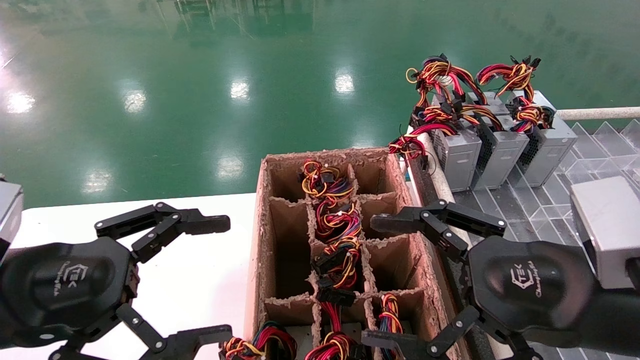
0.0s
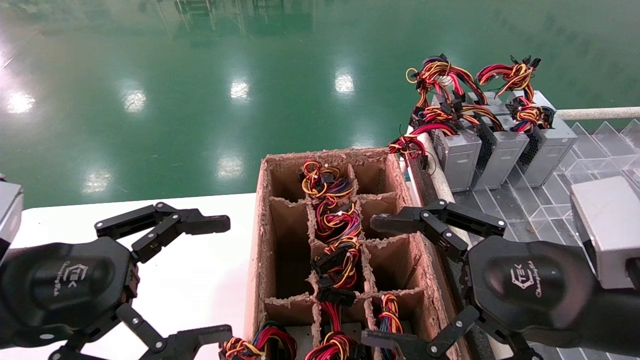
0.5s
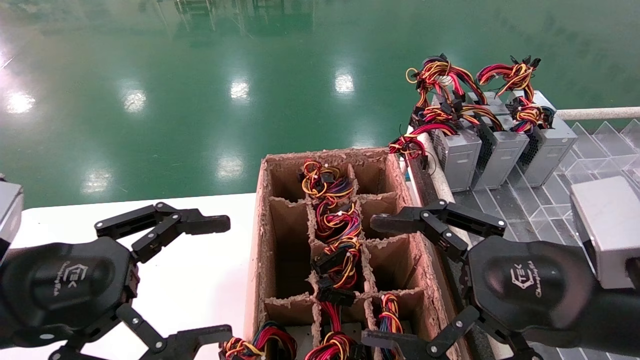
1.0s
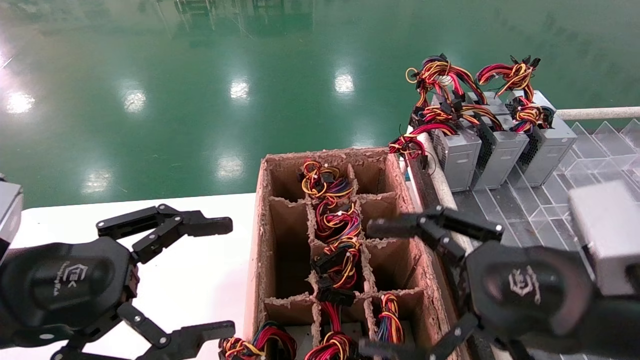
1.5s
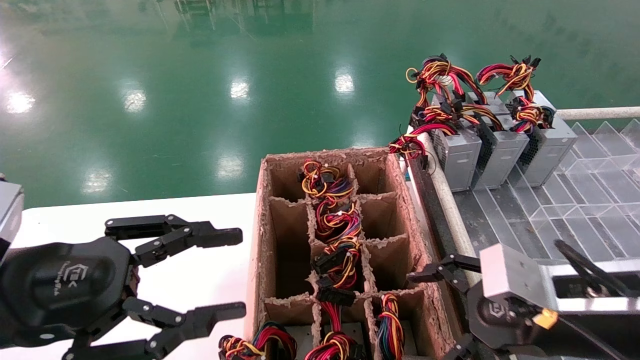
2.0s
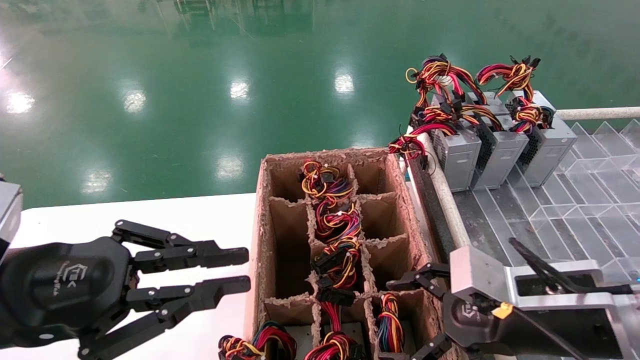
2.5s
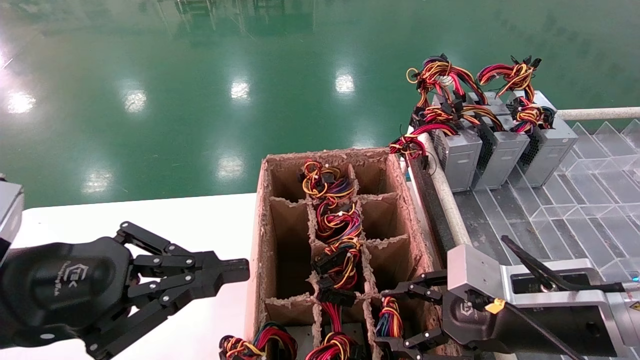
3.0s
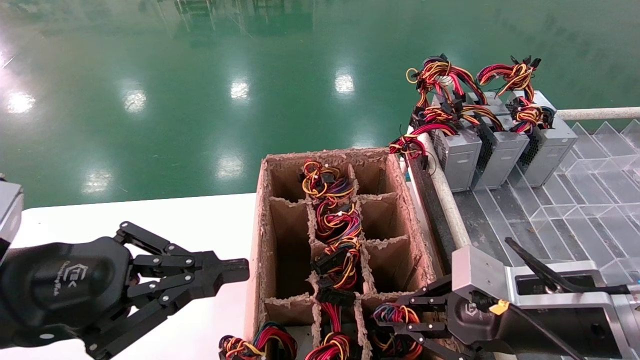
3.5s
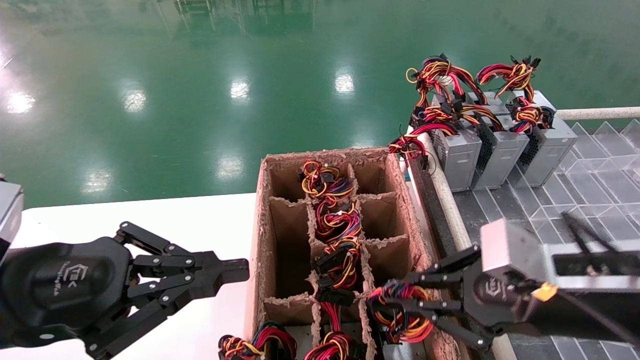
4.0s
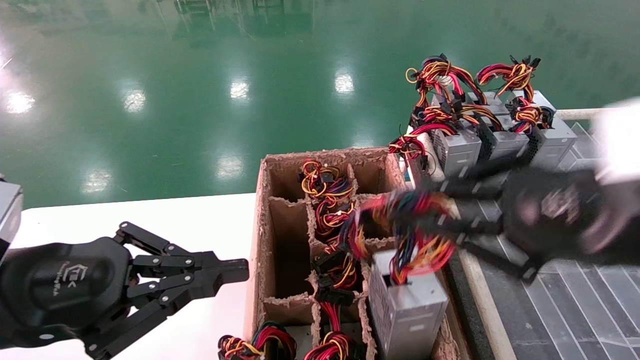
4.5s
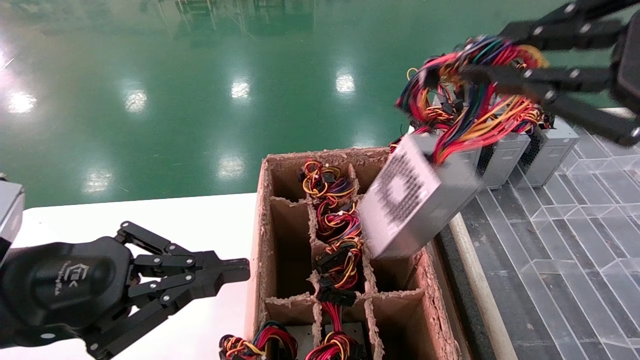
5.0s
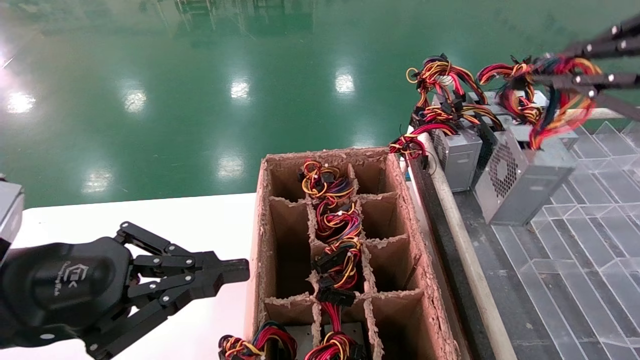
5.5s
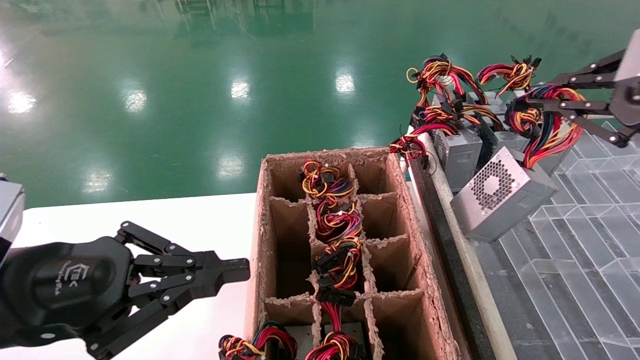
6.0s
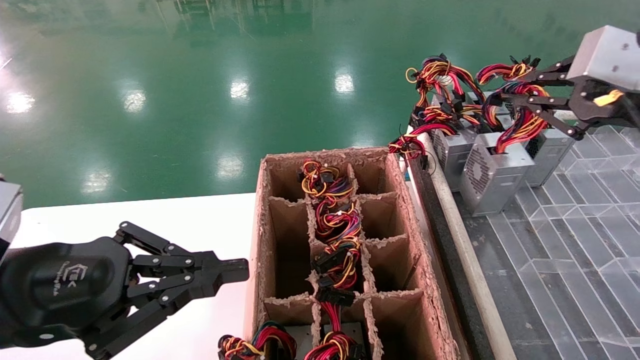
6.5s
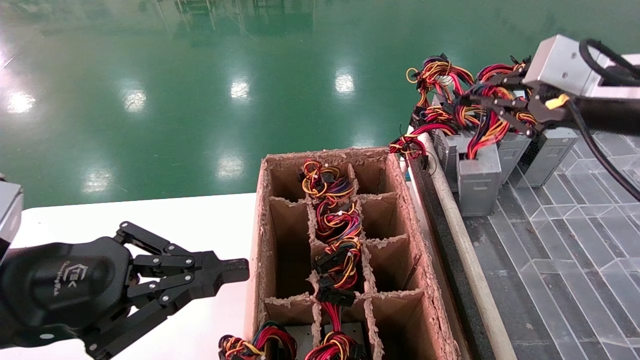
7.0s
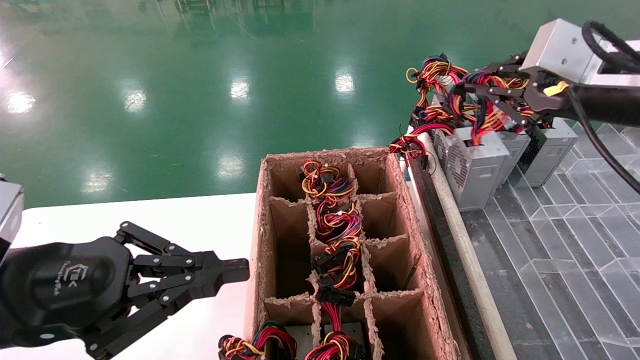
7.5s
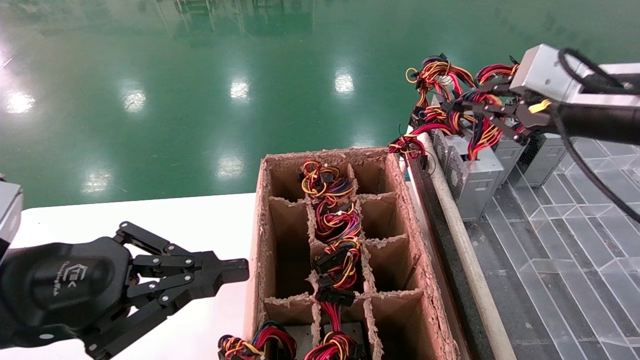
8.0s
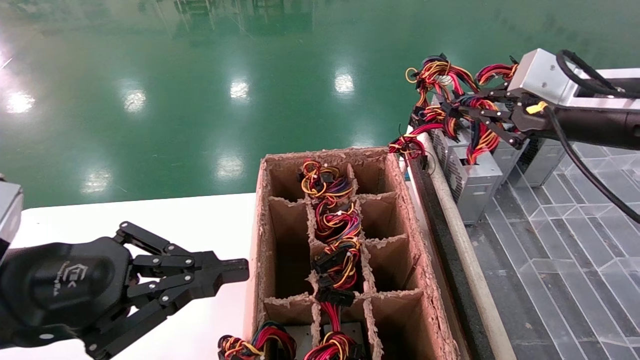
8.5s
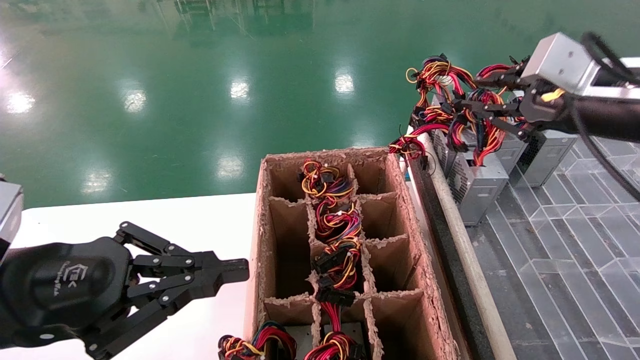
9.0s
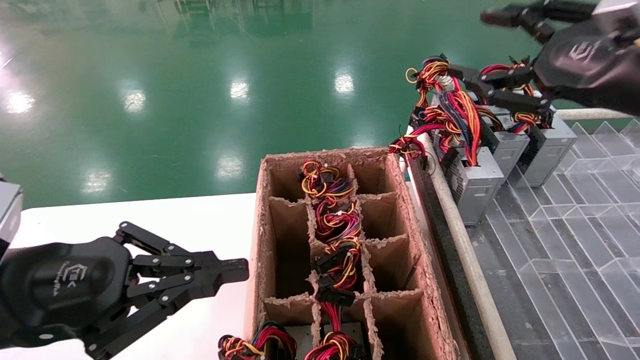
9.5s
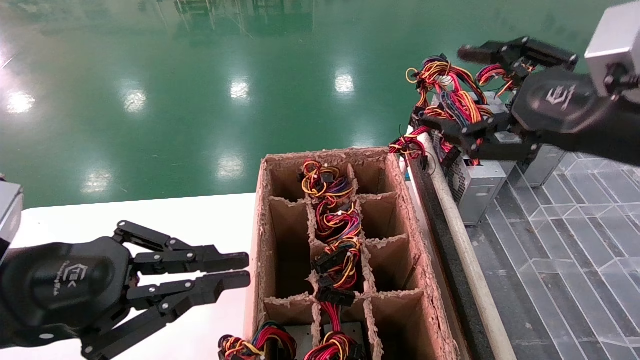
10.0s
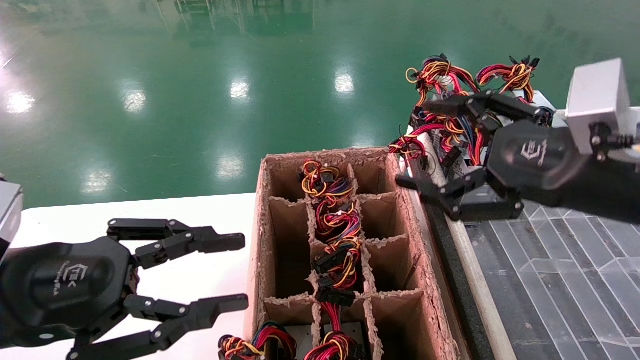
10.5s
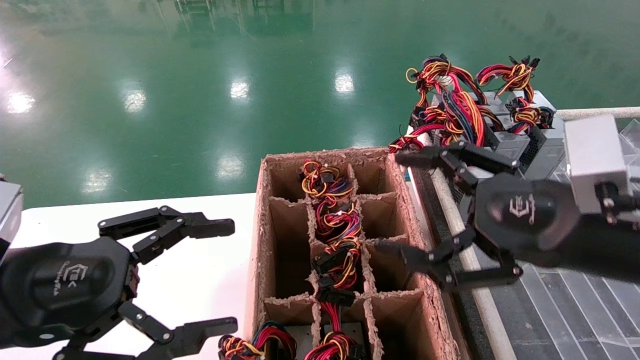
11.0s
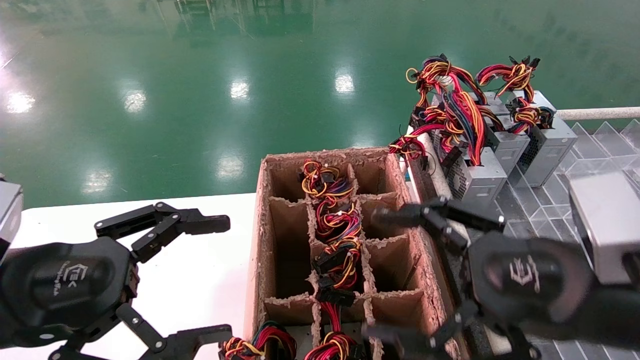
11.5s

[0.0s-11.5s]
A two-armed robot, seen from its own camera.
Step, 2.0s to 3.5s: Grab the main unit power supply from the containment box.
Step, 4.0s to 9.0s: Place the main unit power supply in the designated area.
0.0s to 2.0s: The right gripper ends up roughly 5 cm from where it was.
2.0s to 4.0s: The left gripper closes its fingers. Meanwhile the right gripper closes up.
4.0s to 6.0s: The right gripper shifts some 20 cm upward and to the right.
6.0s to 7.5s: The right gripper moves forward, about 5 cm.
7.5s to 9.5s: The right gripper opens.
9.5s to 11.5s: The left gripper opens its fingers; the right gripper heads downward, to the left and backward, covering some 15 cm, and opens up.

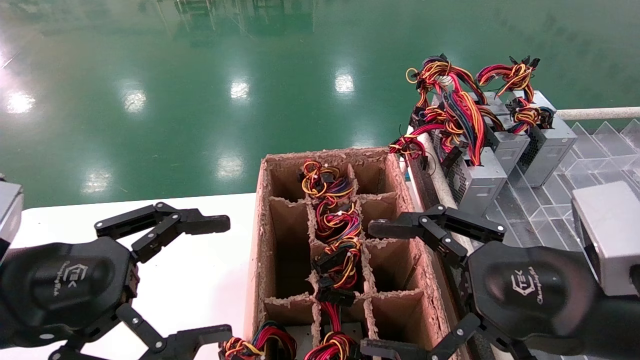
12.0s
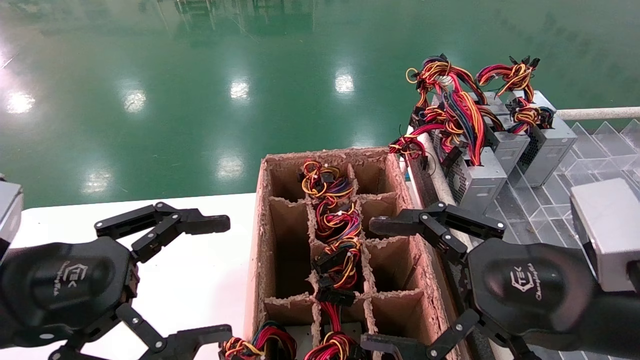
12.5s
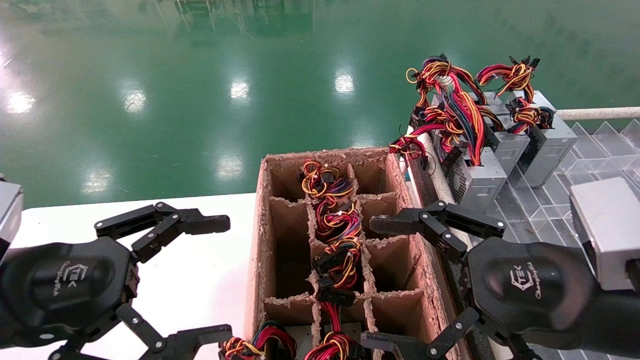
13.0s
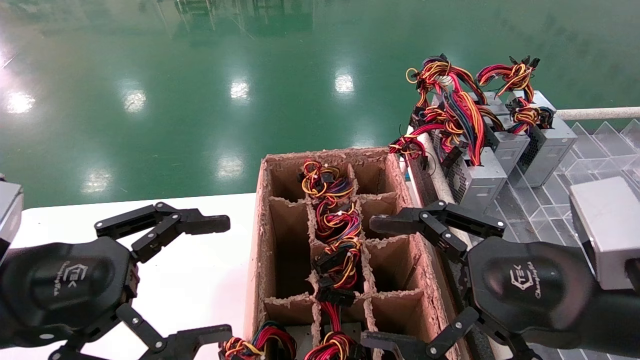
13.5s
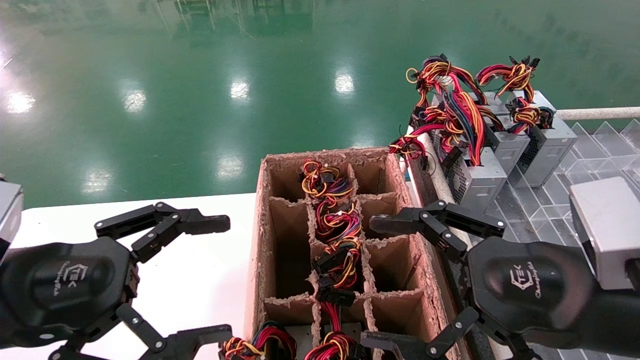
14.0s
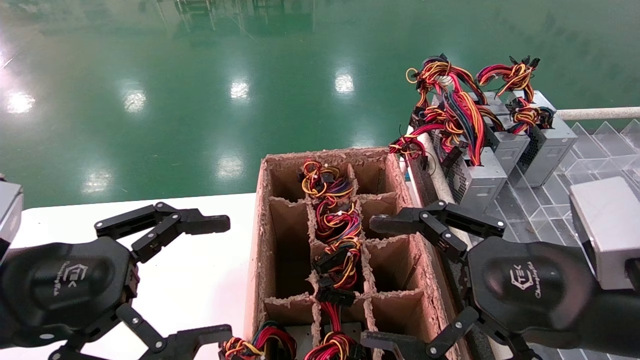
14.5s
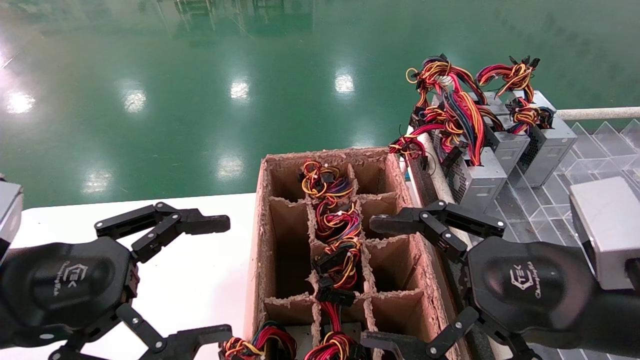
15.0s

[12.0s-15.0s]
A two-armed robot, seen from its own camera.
12.0s to 15.0s: Both grippers stay put.
